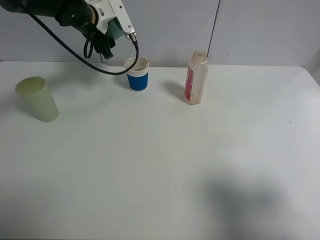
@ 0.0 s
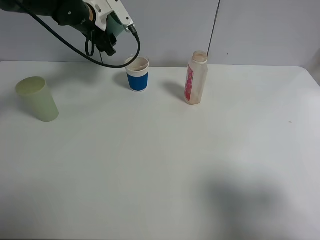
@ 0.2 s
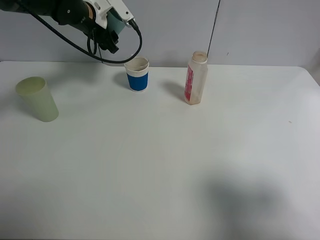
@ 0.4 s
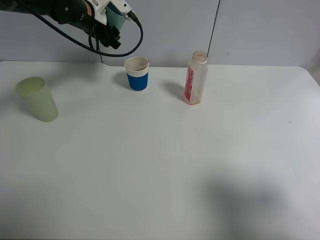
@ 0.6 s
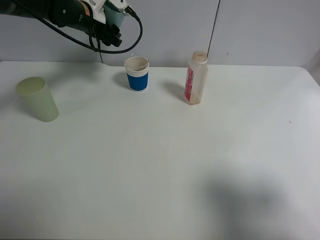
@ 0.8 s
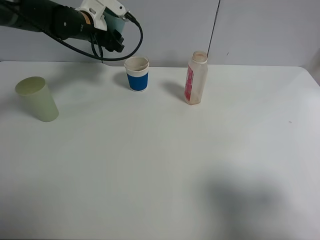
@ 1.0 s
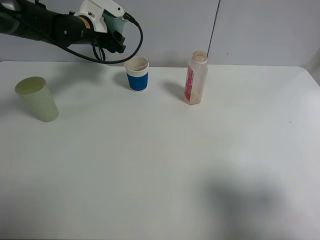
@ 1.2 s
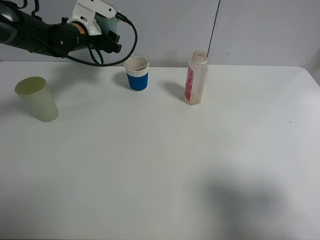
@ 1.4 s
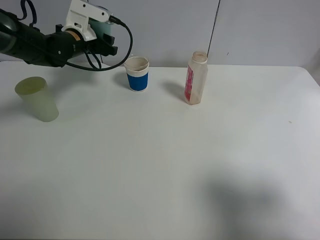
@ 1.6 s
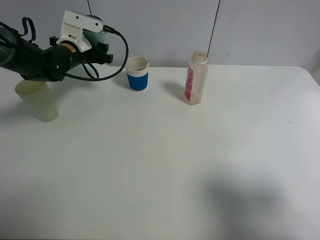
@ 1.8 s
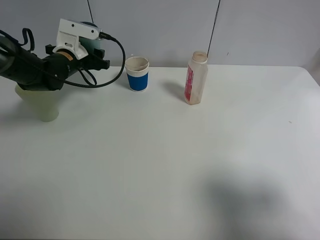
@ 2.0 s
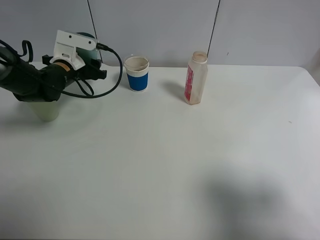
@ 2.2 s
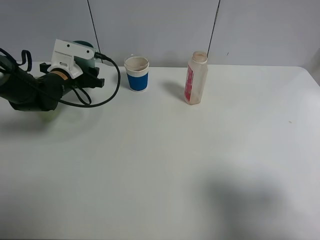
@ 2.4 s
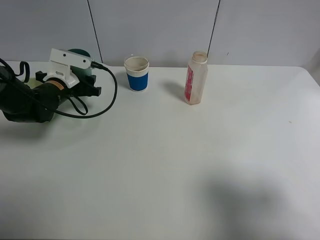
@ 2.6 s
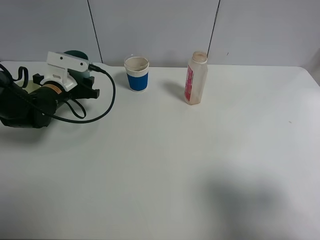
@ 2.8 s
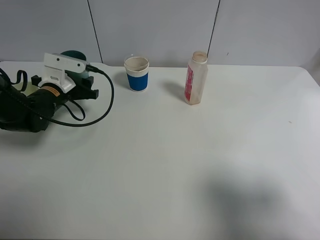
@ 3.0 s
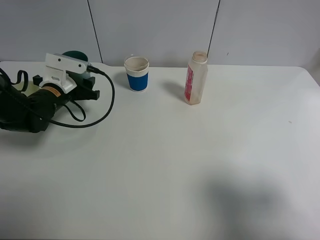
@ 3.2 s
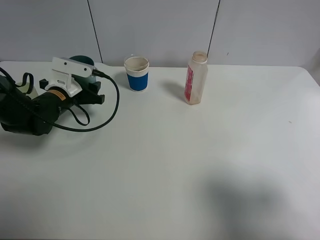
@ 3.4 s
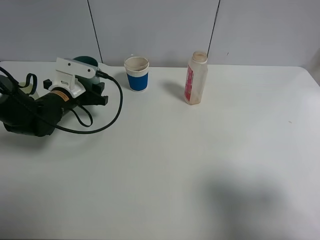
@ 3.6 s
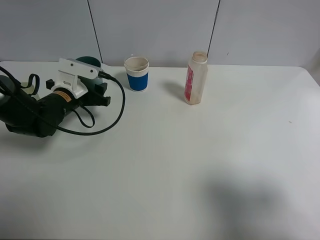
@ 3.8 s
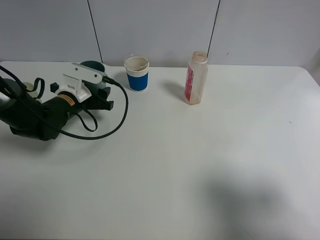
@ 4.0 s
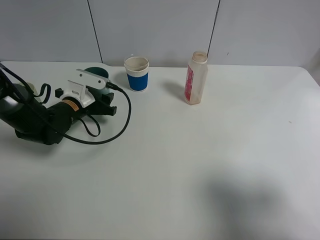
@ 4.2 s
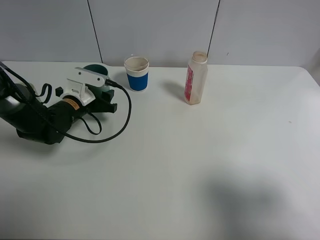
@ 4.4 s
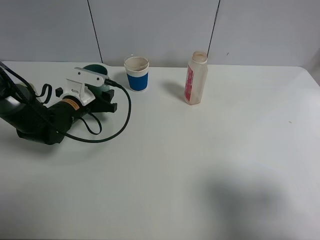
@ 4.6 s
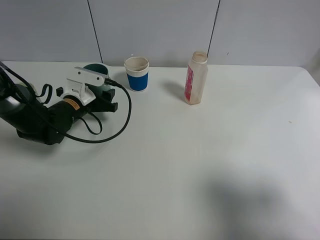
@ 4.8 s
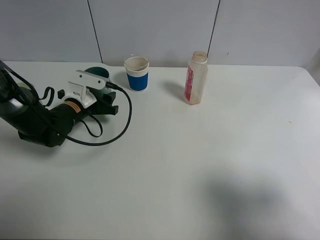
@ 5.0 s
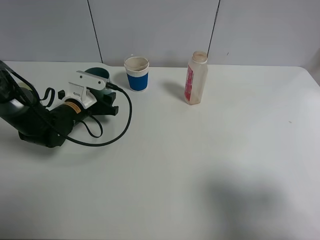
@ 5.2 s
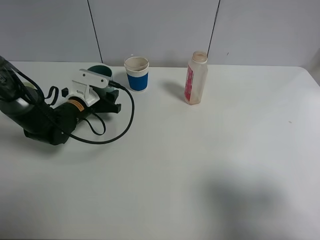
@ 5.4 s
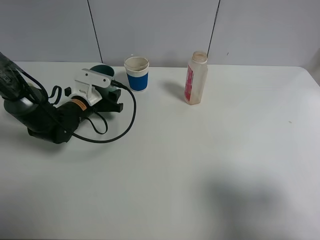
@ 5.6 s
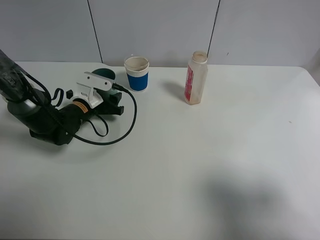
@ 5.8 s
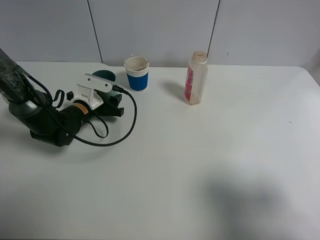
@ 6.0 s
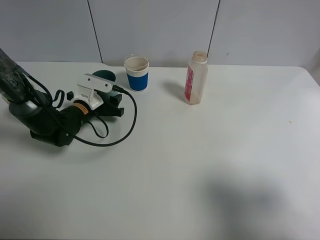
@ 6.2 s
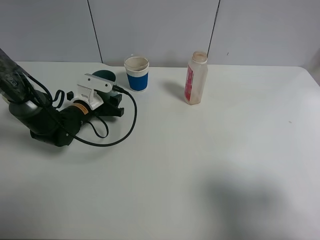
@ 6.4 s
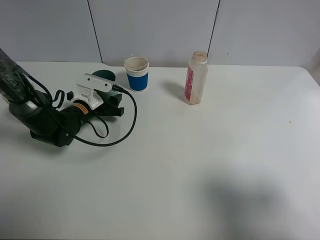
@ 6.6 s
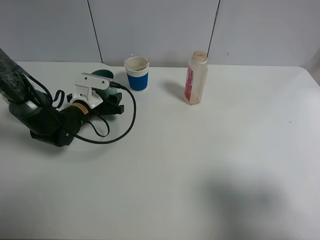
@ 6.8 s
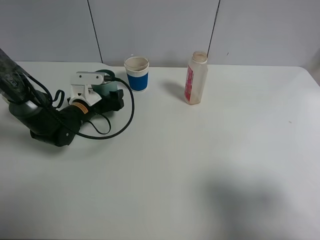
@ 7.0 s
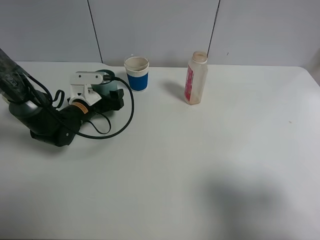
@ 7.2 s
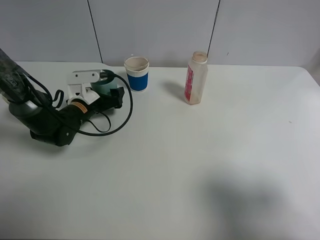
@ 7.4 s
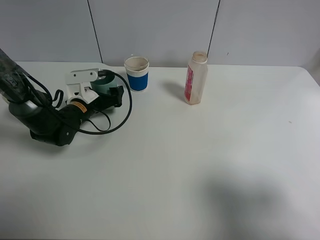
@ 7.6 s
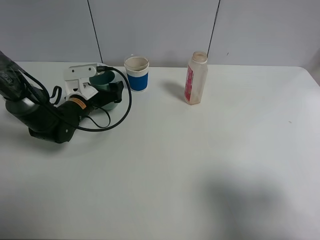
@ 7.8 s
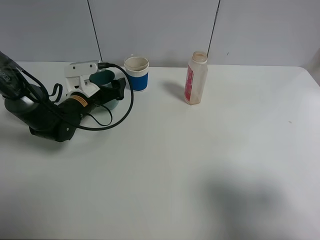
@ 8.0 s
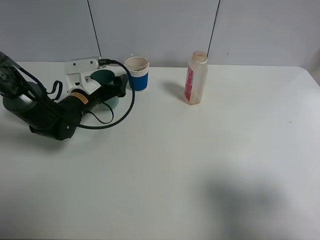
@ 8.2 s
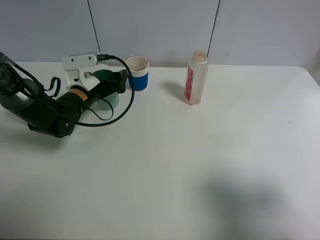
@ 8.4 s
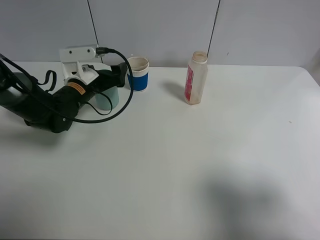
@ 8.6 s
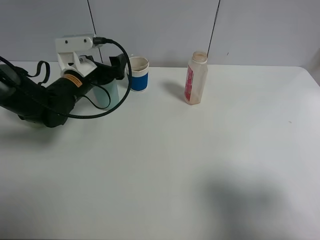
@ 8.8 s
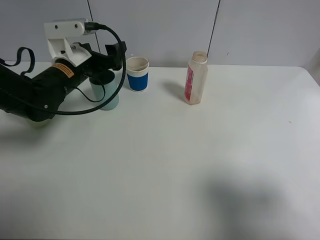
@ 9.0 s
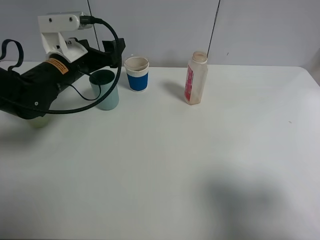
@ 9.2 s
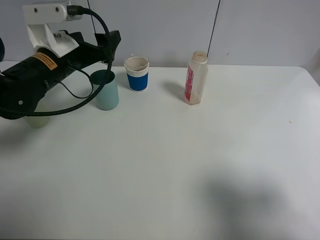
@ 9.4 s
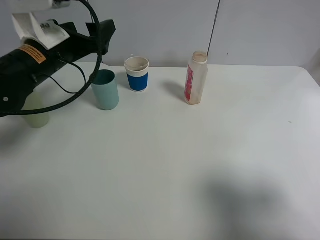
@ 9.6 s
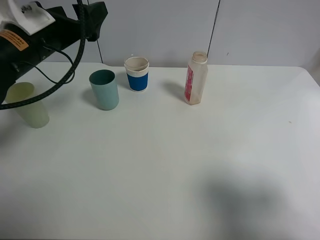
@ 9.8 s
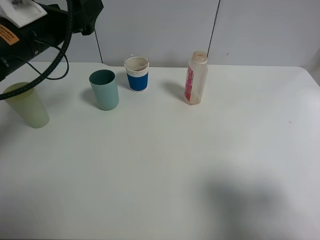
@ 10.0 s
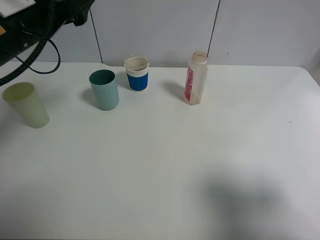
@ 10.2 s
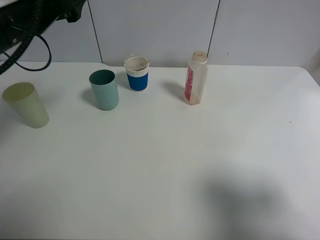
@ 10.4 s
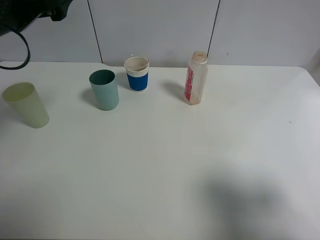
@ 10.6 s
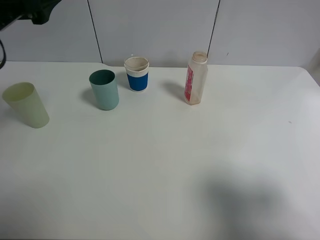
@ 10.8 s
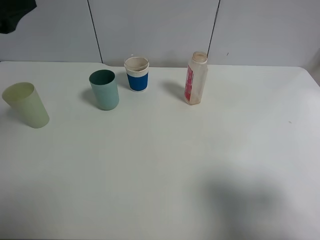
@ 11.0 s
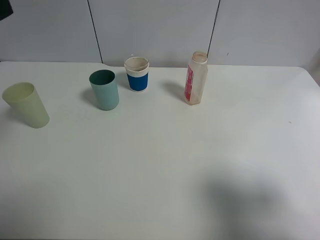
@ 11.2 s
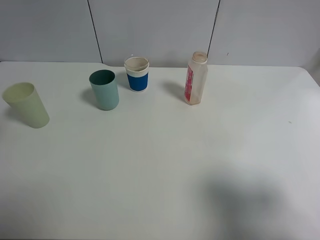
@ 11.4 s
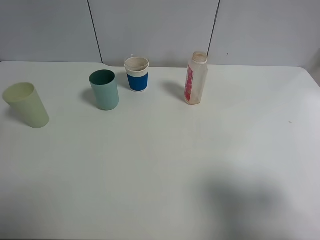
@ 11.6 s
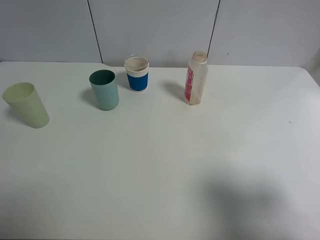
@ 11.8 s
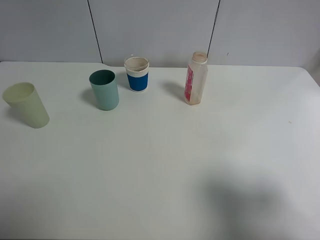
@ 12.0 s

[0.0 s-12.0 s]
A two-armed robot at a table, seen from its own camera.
Task of the whole recording: use a clamp to hold the bottle of the drink, pour the beverage into a random cup, then clamp the cup containing the drink and pour the drink into another random cup.
Step, 0.0 to 8.2 s: Place the blue plastic cup on the table with left gripper.
0.0 to 1.6 s: The left gripper shifts about 5 cm downward.
1.6 to 3.0 s: The left gripper moves backward and downward, some 10 cm.
3.0 to 4.4 s: There are only small adjustments of the grippers.
4.4 to 6.0 s: The grippers move only a little.
6.0 to 7.6 s: The left gripper opens up.
7.6 to 9.0 s: The left gripper shifts approximately 10 cm upward.
9.0 to 10.4 s: The left gripper travels upward and backward by roughly 15 cm.
10.4 to 12.0 s: The left gripper goes approximately 20 cm backward and to the left.

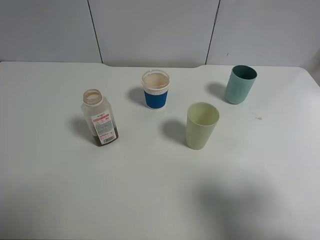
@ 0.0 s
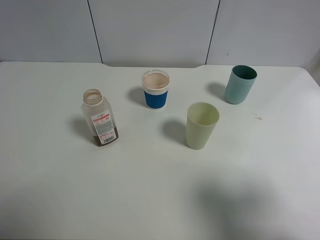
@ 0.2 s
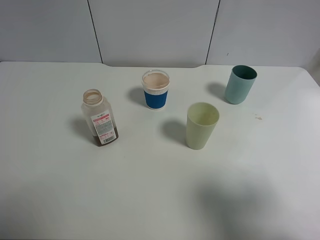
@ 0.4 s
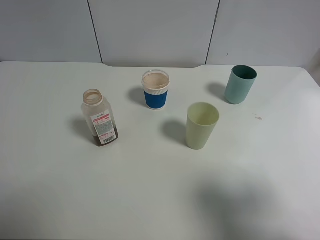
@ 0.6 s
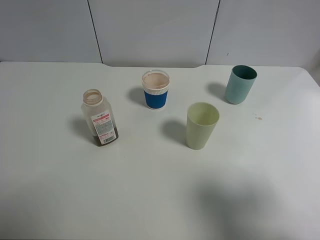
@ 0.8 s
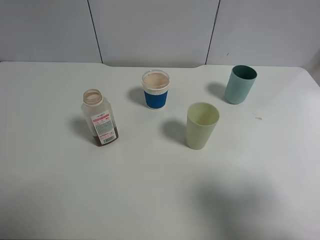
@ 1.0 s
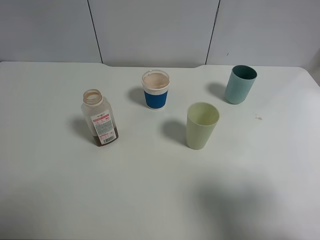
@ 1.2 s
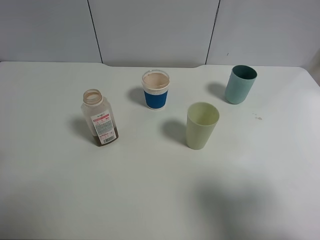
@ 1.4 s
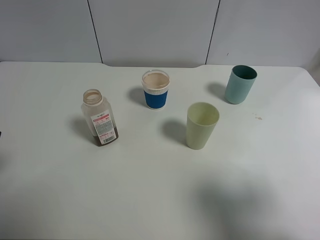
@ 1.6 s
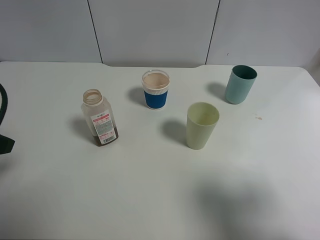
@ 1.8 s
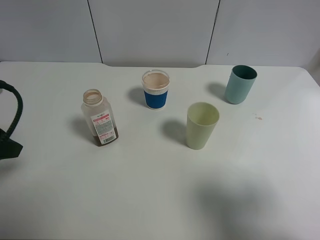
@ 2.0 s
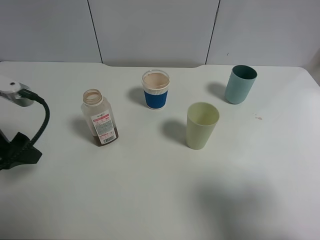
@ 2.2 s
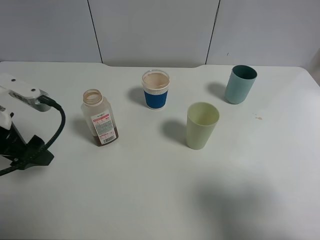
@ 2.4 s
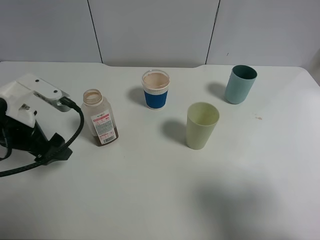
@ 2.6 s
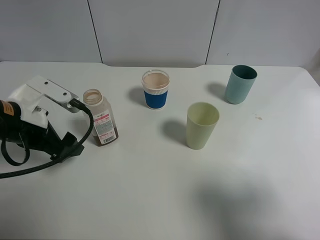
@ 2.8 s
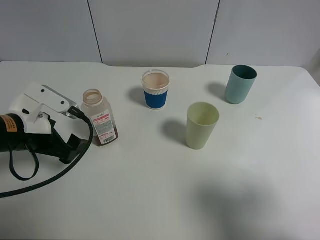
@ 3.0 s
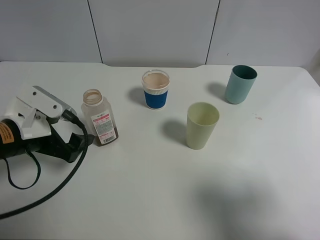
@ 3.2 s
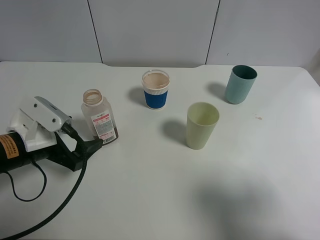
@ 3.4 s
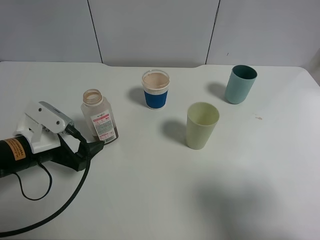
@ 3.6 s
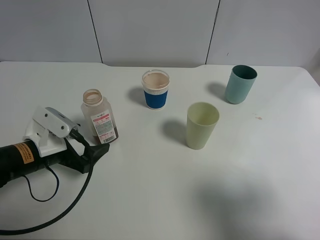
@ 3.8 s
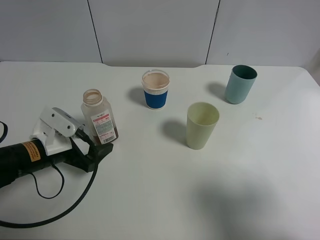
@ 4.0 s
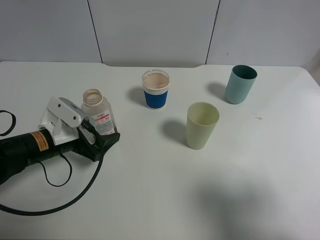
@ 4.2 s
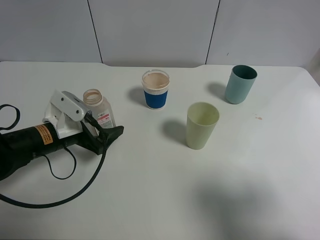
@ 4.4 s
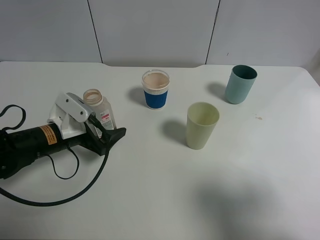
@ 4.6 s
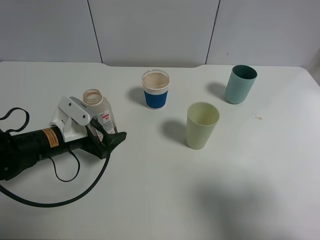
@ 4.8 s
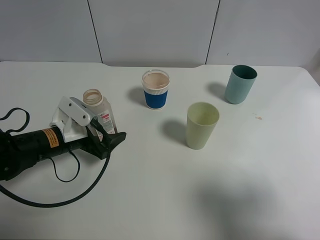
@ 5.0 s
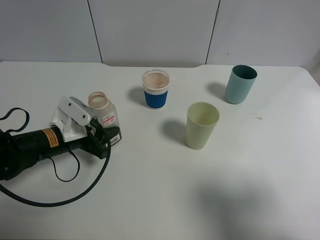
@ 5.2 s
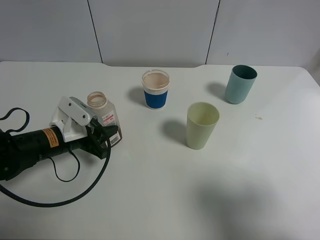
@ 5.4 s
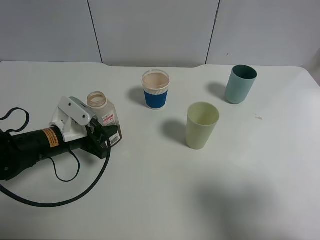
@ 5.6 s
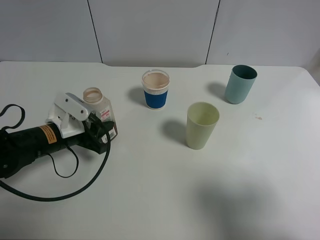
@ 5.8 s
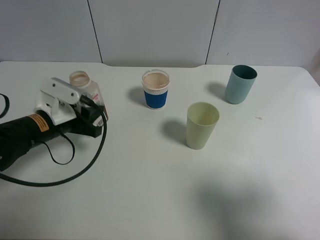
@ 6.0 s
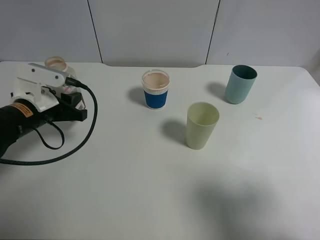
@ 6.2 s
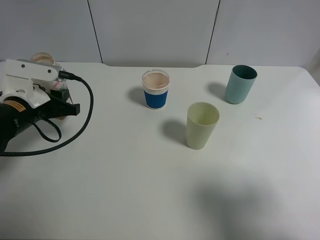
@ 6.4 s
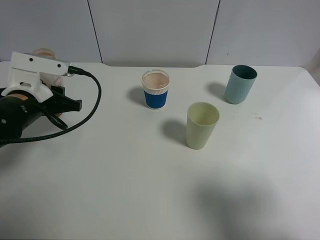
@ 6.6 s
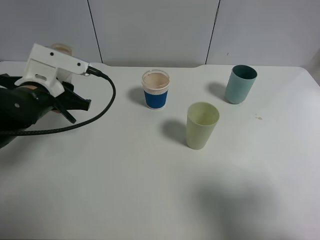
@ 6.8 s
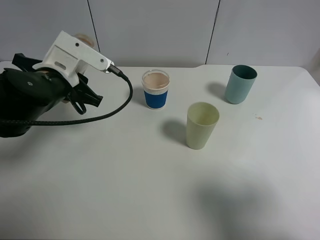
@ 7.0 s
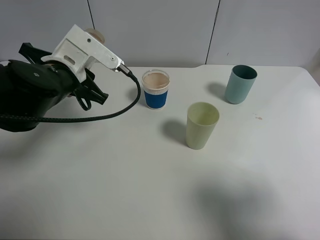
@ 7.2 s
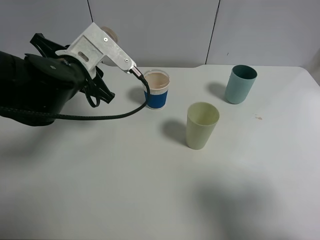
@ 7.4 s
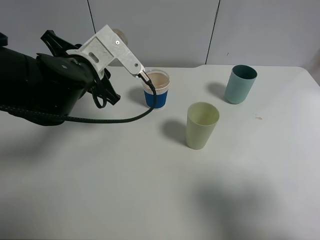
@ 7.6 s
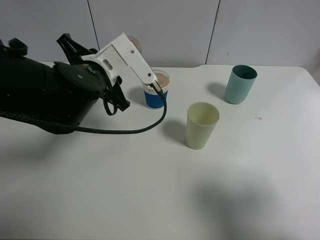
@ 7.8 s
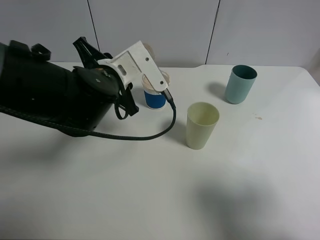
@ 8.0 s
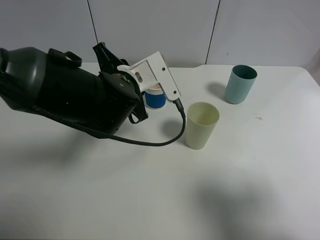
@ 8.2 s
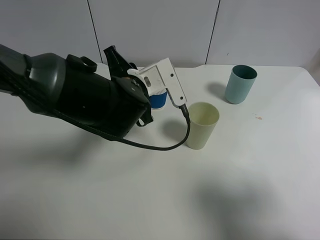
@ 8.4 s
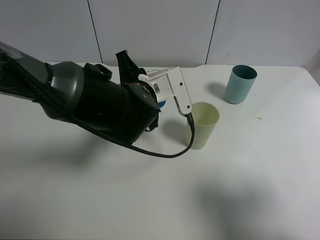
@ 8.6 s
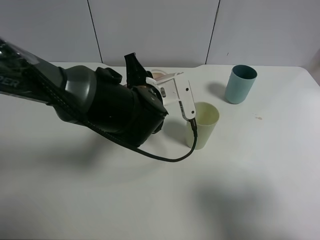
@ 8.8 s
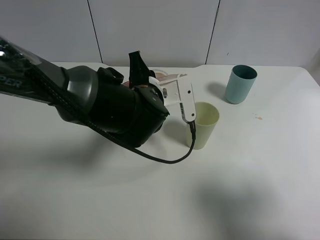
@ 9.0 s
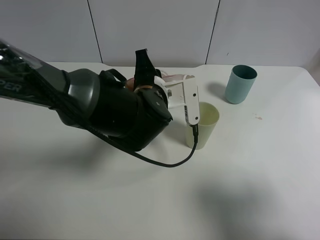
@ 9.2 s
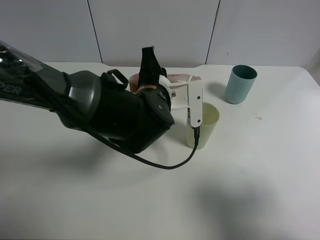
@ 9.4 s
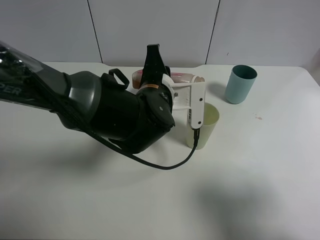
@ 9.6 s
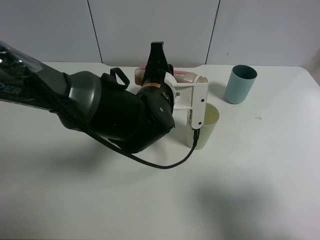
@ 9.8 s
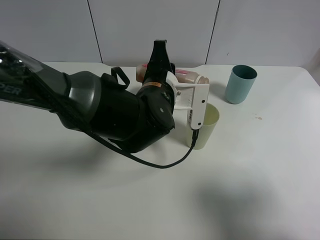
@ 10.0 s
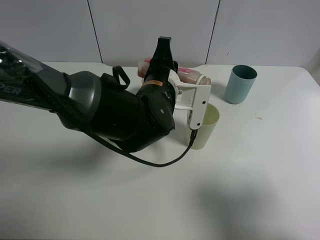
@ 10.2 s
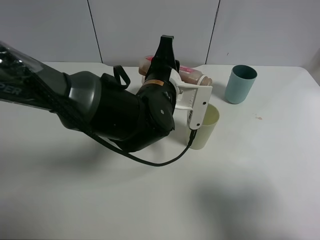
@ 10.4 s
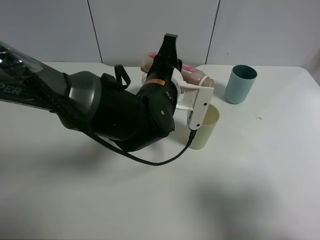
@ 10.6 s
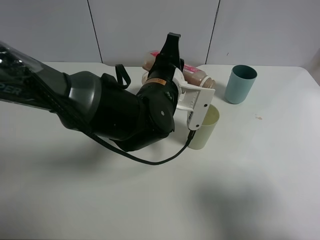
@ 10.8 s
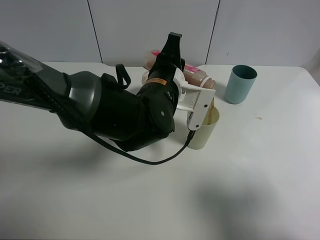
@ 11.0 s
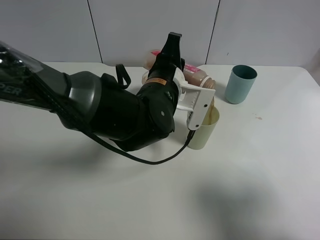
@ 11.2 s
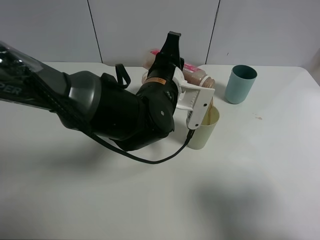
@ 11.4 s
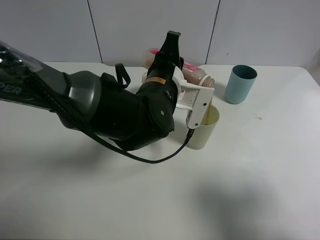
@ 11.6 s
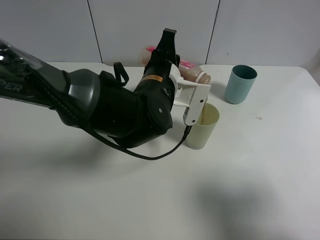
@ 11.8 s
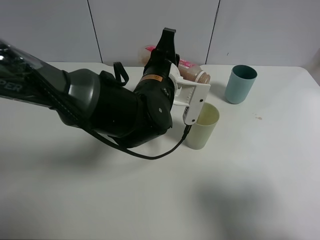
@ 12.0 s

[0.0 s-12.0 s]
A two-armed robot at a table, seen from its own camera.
Task of the whole recording: use a clamp to hold the bottle of the drink, pour the beverage into a random cup, then clamp the cup containing the drink and pour the drink into another random cup.
Step, 0.0 to 5.8 s: Pick up the drink bottle with left gripper.
1.6 to 3.0 s: The left gripper shifts about 15 cm downward, forward and to the right.
3.0 to 4.4 s: The left gripper moves downward, about 5 cm.
4.4 to 6.0 s: The left gripper closes its fingers.
6.0 to 7.6 s: The left gripper goes approximately 15 cm upward and to the right.
7.6 to 9.0 s: The left gripper goes roughly 10 cm to the right and downward.
10.4 to 12.0 s: The grippers move only a little.
